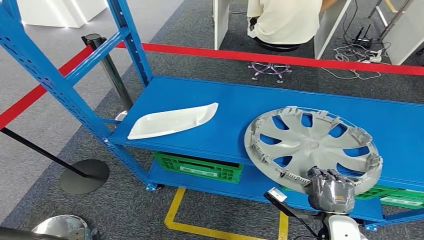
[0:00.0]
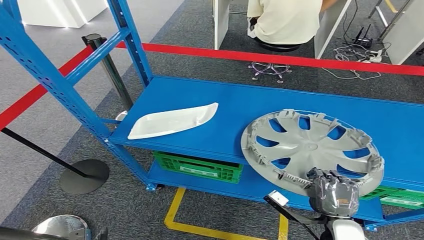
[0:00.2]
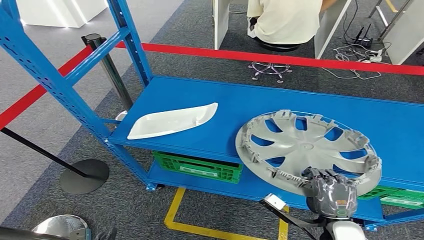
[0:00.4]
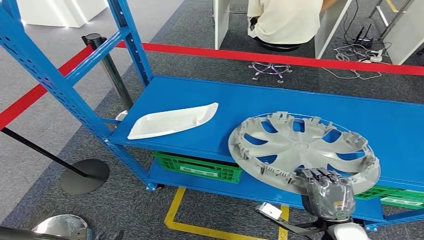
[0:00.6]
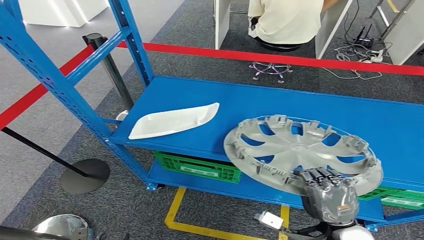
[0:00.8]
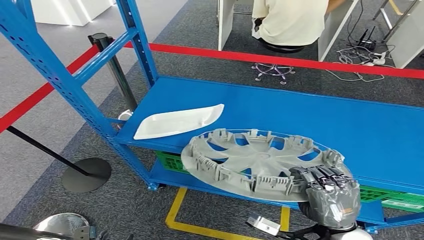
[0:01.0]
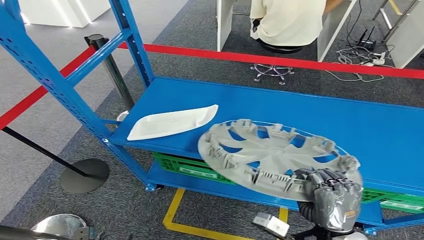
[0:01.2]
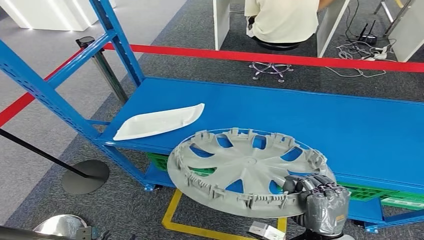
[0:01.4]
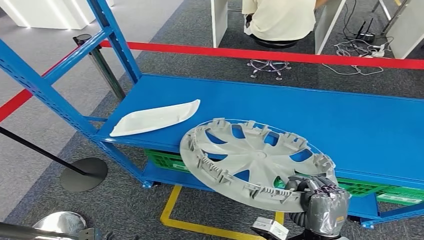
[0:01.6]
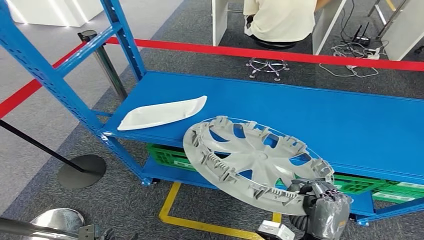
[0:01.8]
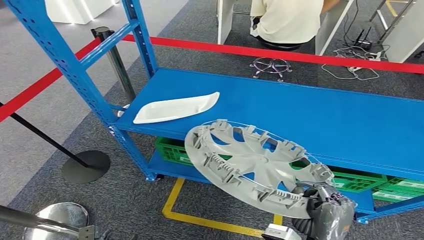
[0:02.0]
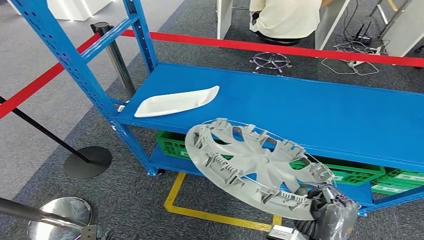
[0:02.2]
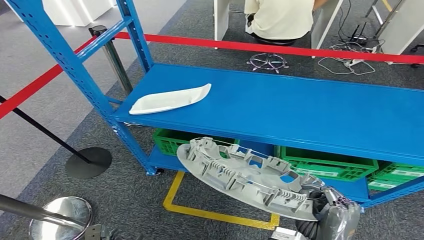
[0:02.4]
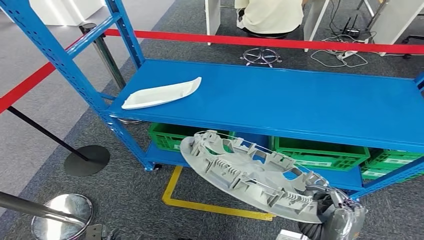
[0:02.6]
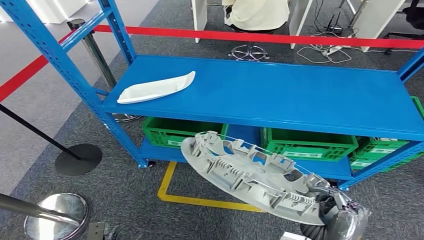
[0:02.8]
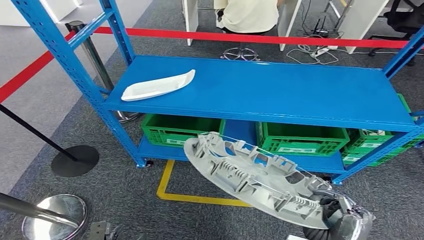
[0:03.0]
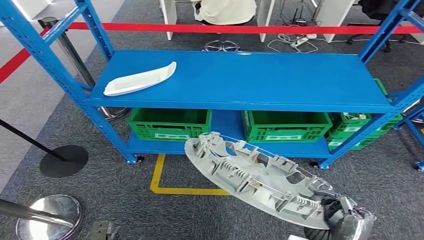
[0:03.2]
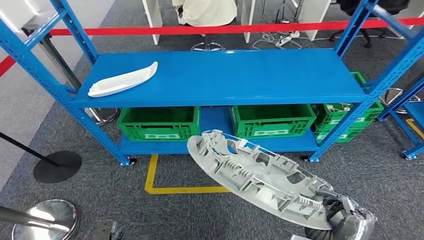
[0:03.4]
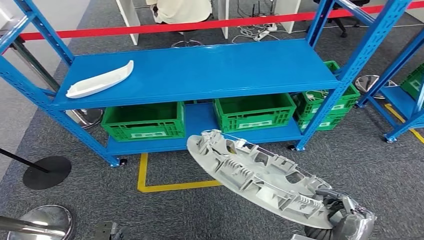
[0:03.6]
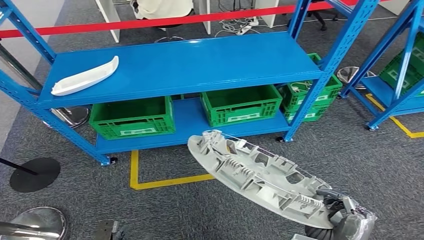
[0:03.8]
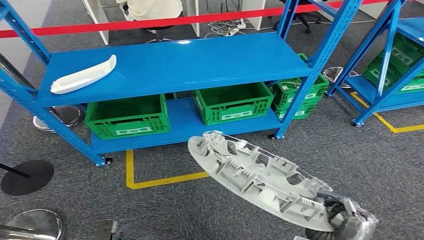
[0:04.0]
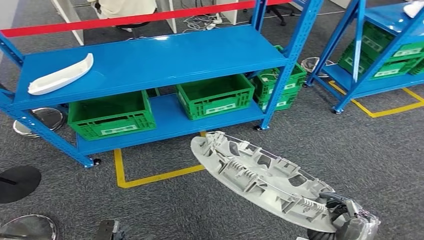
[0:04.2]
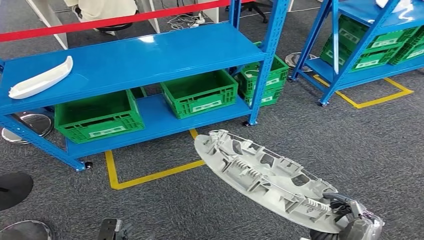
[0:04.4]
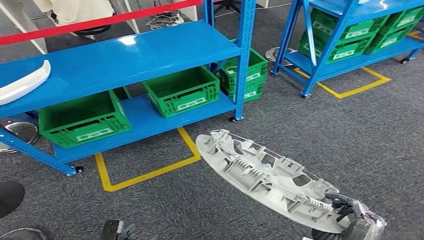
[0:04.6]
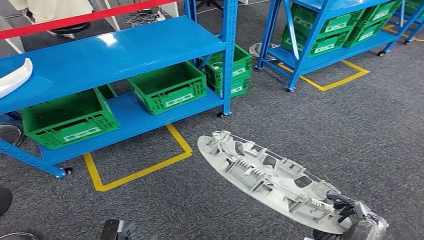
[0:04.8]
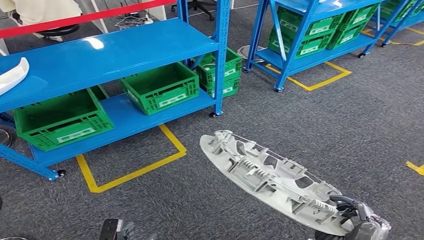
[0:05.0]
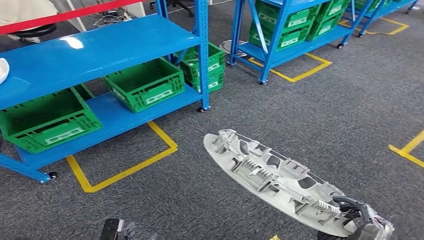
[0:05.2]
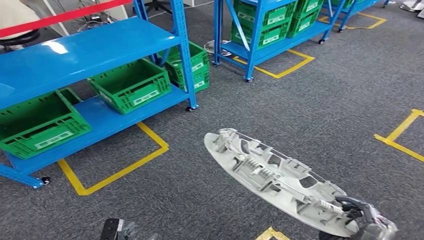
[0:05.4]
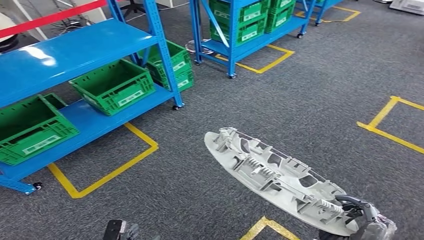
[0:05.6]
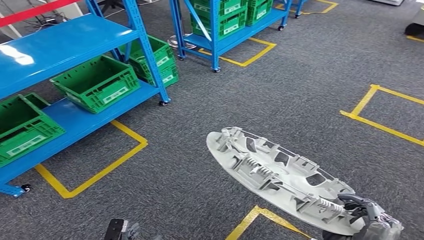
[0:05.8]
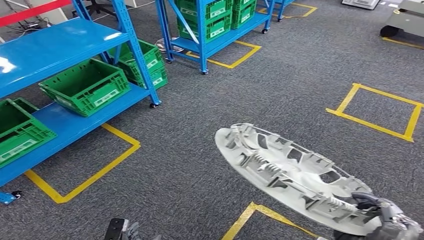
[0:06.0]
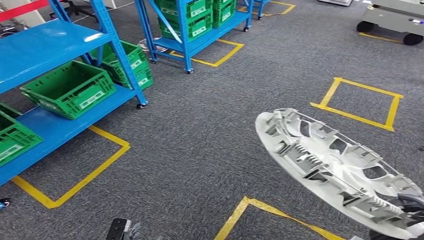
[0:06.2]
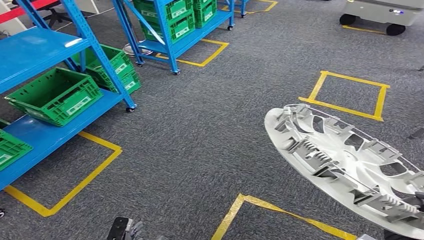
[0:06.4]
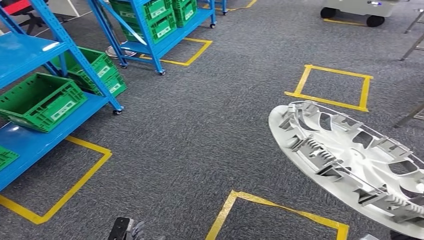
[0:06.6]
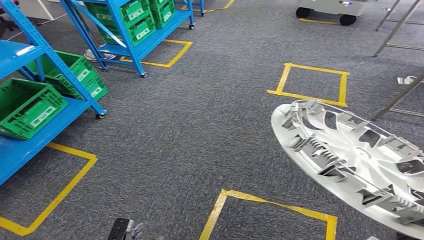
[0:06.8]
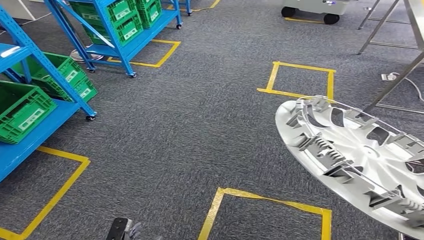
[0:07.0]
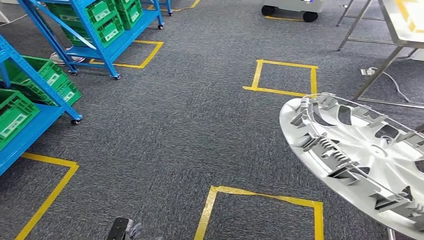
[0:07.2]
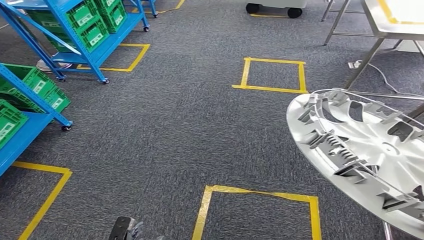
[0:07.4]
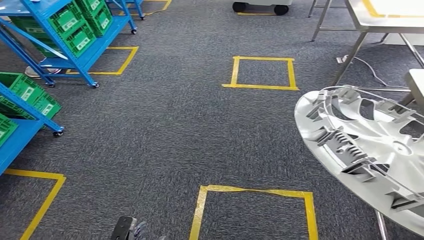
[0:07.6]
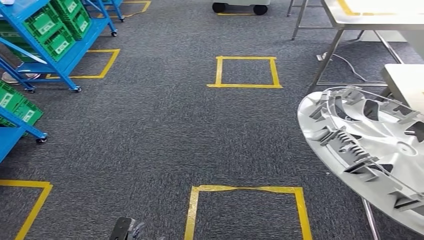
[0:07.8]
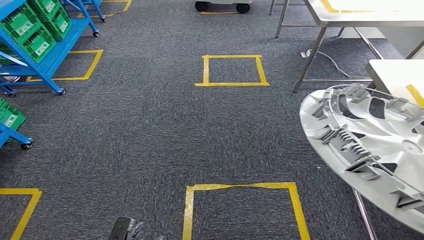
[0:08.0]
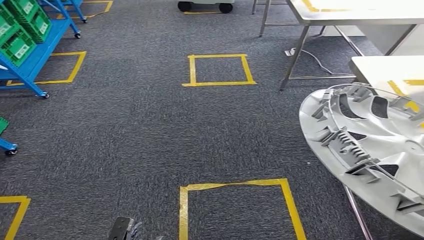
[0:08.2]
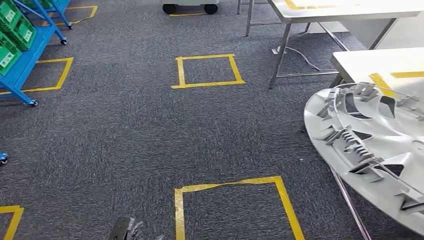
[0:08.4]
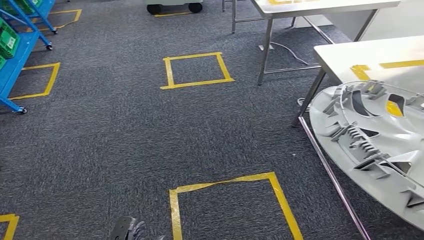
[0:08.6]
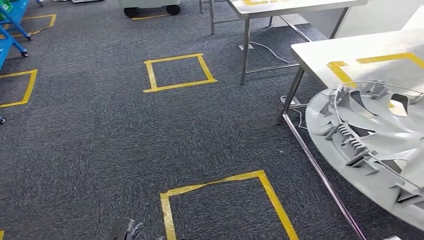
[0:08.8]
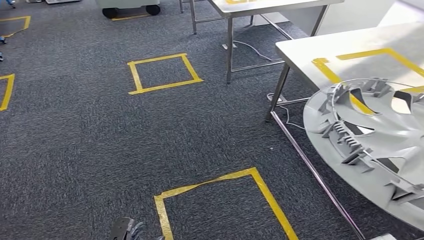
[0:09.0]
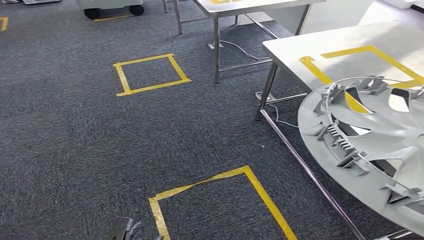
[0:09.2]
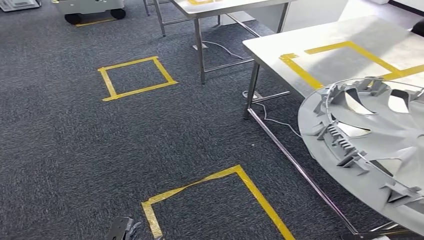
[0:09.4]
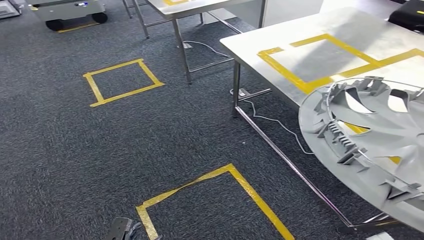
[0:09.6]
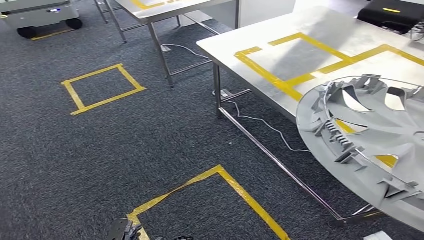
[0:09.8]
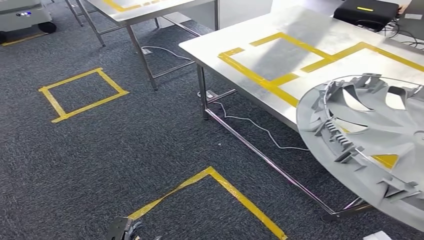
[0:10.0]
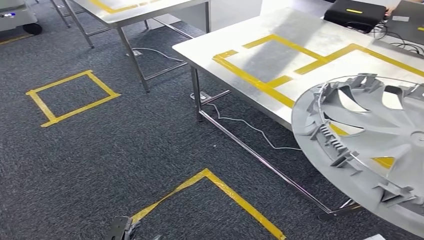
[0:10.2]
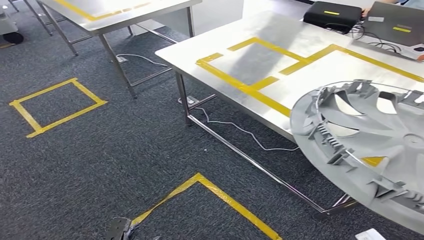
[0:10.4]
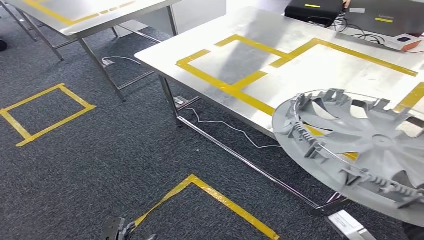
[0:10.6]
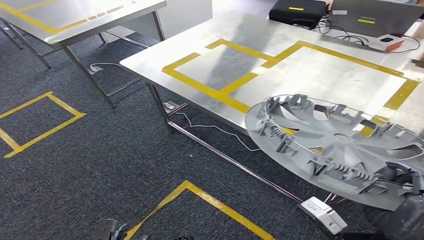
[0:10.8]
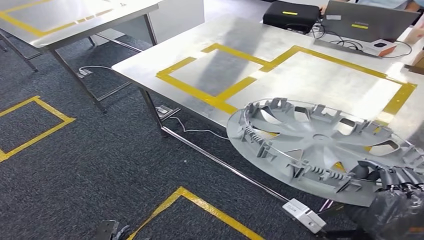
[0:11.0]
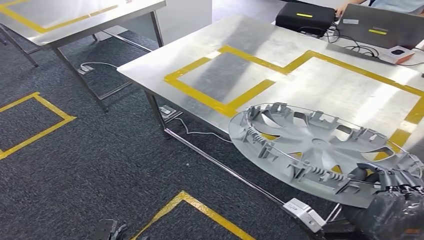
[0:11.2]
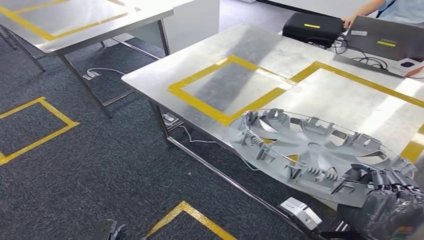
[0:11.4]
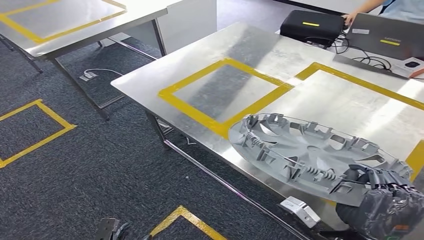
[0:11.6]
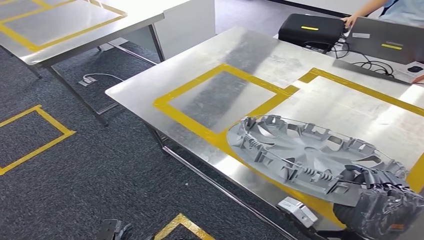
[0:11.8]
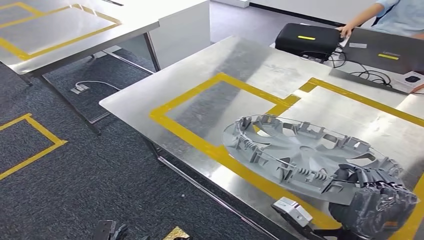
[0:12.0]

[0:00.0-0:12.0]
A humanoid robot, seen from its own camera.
Step, 0:01.8 to 0:11.6: Move the small component to the workbench.

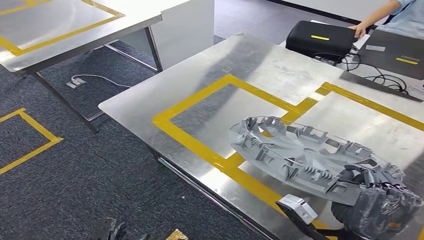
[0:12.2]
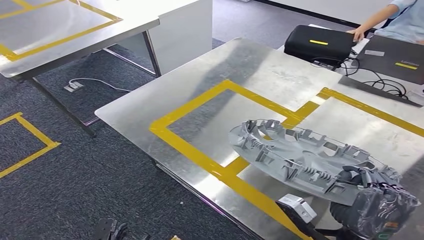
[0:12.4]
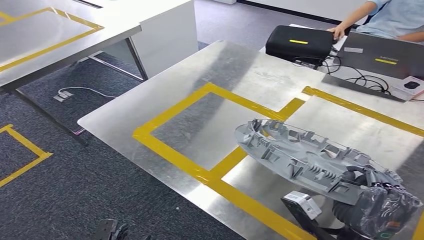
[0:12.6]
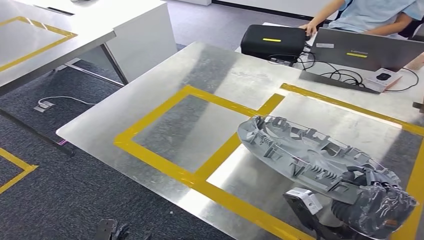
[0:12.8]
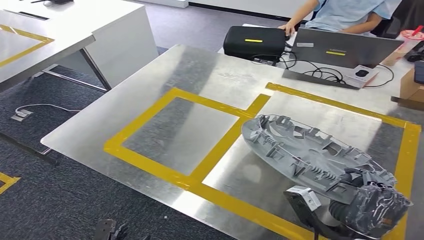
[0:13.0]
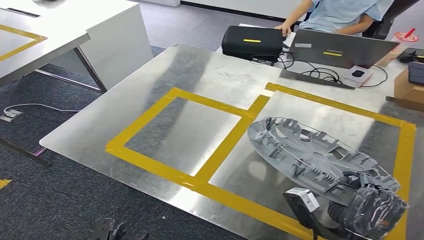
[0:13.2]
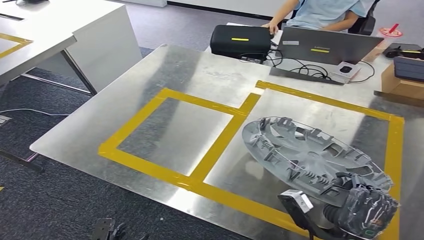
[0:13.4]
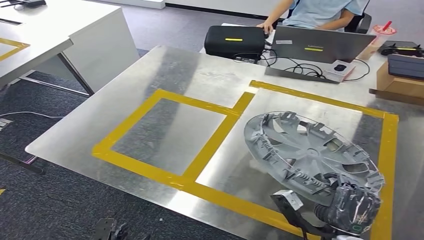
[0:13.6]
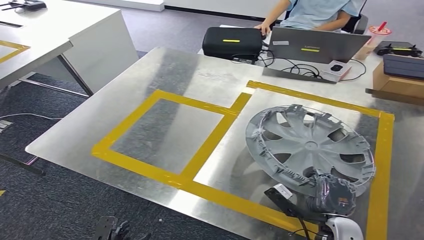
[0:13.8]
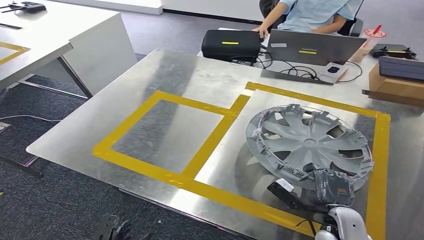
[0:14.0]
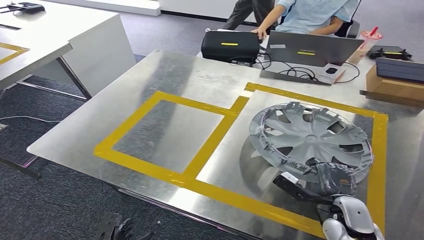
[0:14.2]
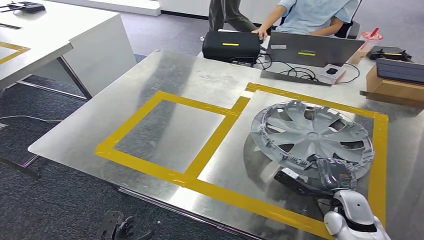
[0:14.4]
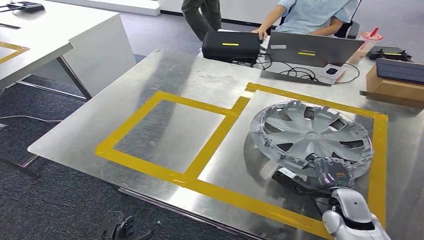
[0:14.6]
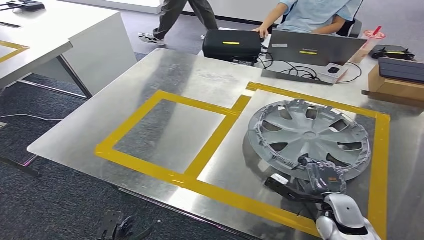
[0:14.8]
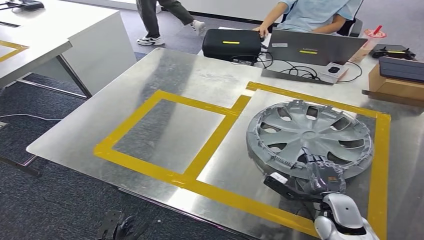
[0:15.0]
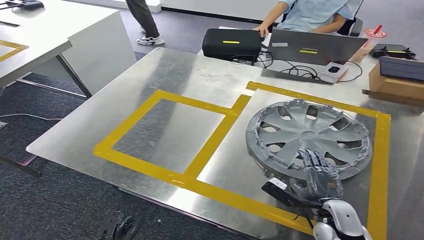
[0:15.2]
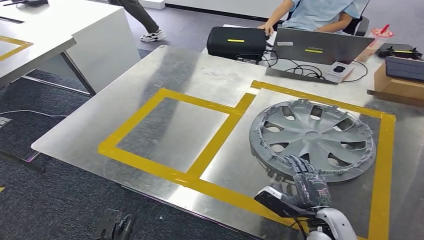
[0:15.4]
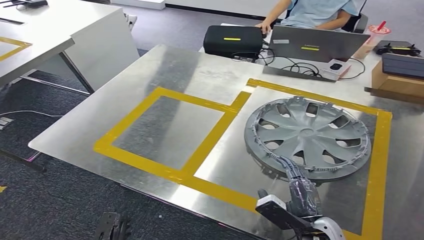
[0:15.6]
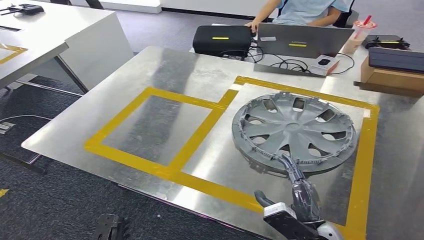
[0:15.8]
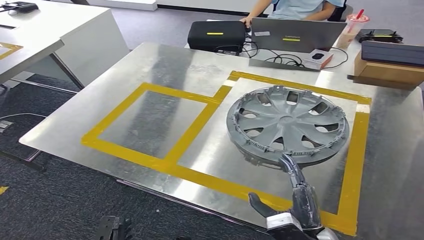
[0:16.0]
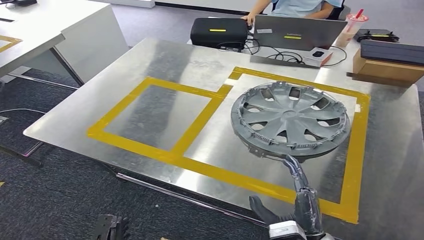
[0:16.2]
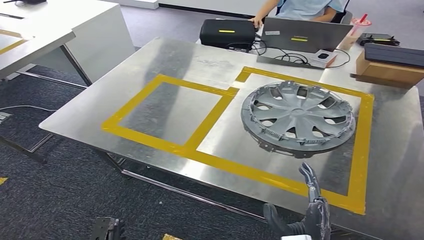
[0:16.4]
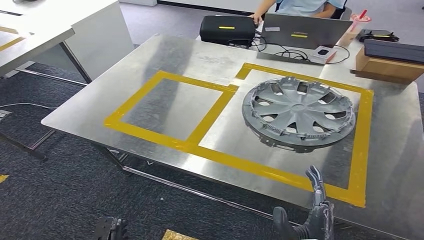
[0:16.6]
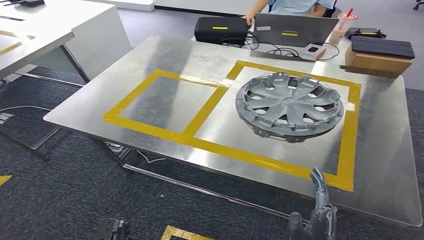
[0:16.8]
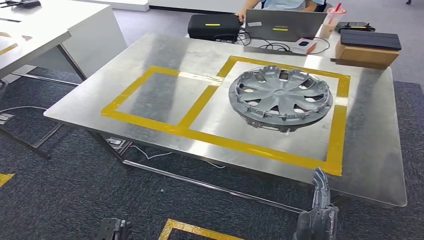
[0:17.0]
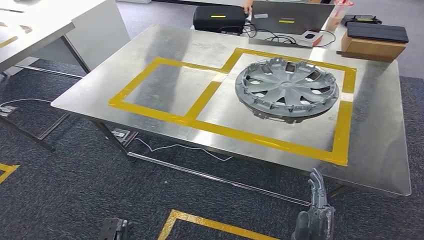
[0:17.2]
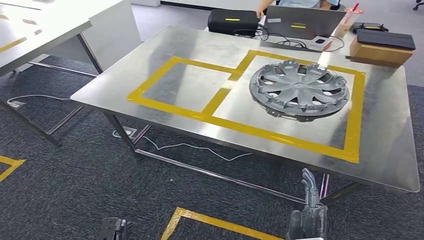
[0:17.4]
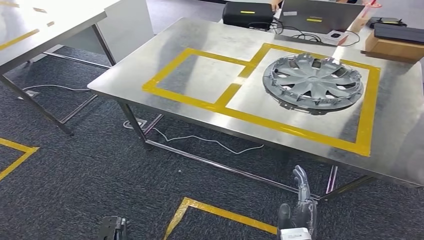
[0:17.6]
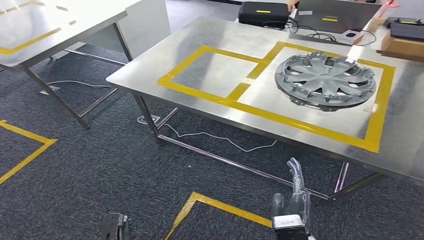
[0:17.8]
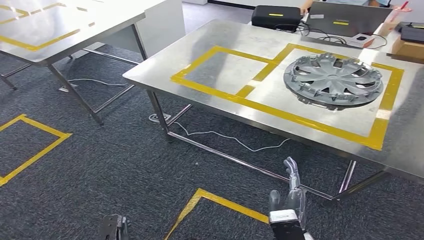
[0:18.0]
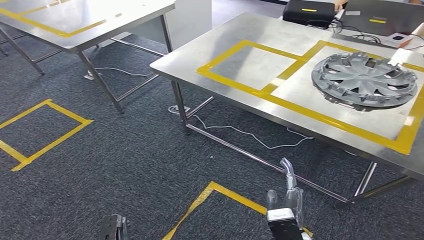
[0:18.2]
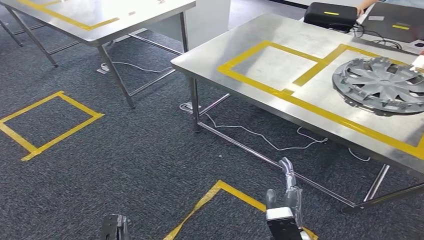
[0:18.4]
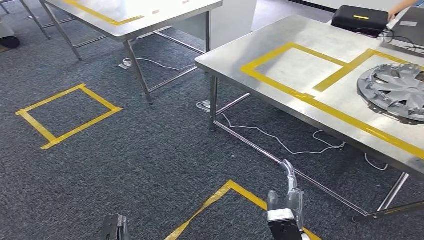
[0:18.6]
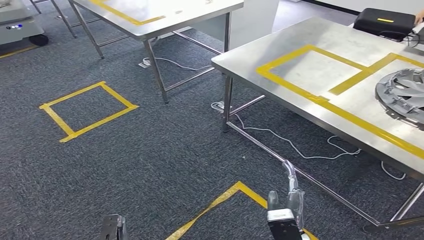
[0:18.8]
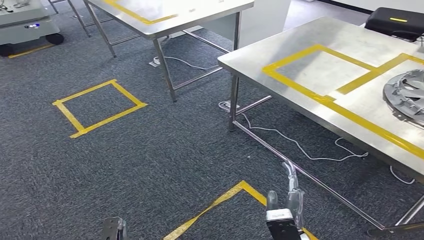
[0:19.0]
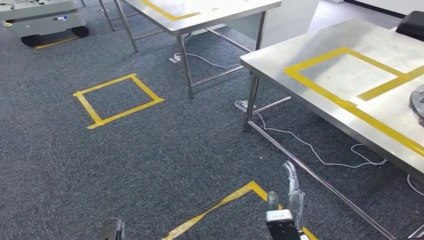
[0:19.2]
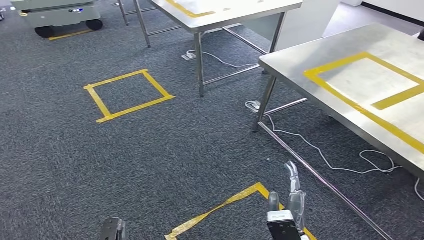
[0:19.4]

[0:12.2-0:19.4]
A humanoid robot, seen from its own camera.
Step, 0:12.2 to 0:16.8: Insert the small component into the corresponding slot on the workbench.
